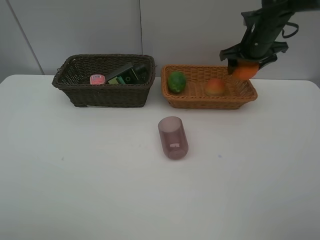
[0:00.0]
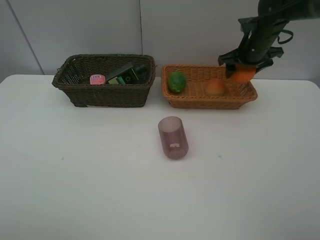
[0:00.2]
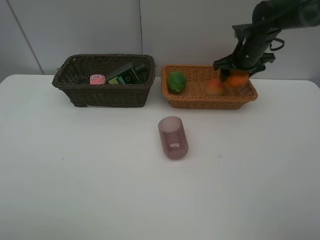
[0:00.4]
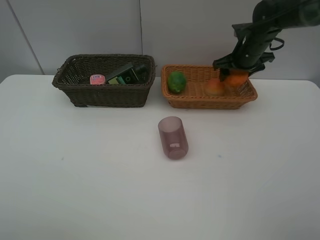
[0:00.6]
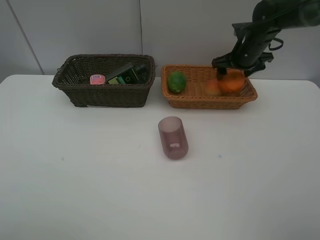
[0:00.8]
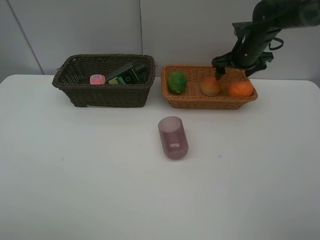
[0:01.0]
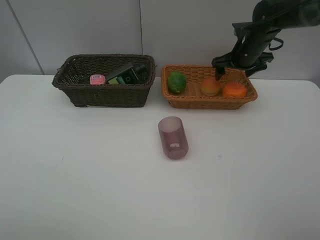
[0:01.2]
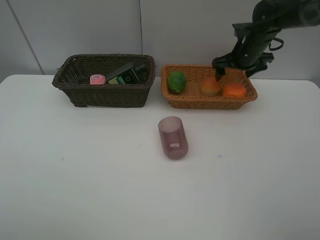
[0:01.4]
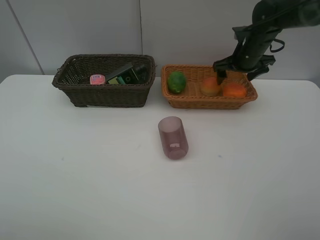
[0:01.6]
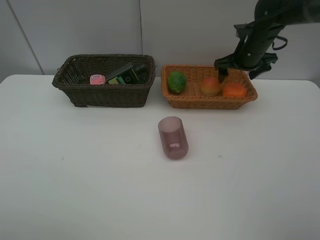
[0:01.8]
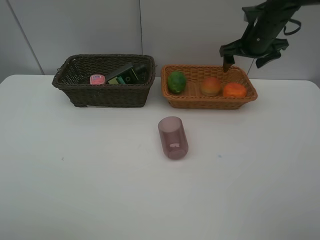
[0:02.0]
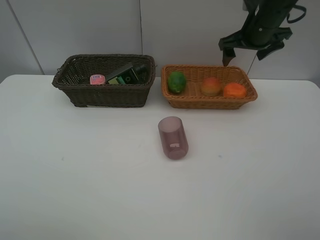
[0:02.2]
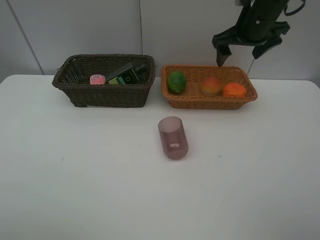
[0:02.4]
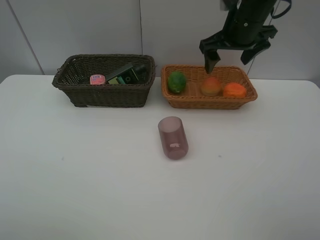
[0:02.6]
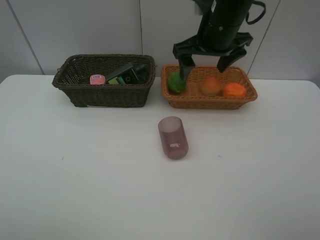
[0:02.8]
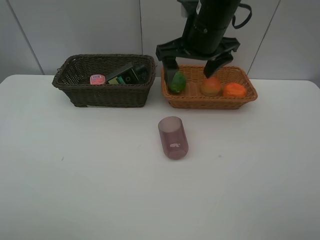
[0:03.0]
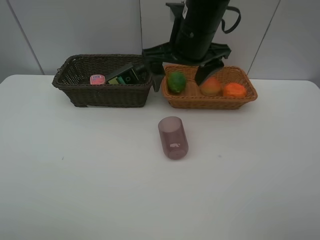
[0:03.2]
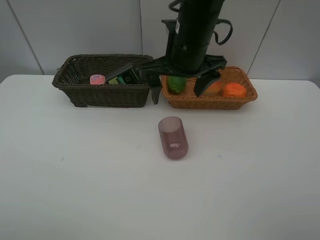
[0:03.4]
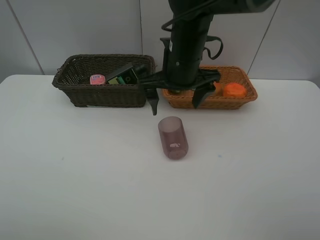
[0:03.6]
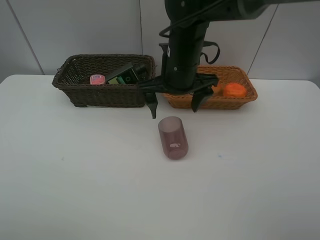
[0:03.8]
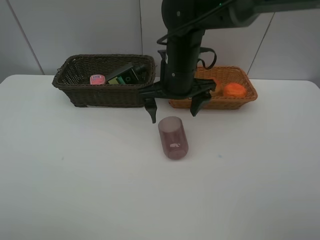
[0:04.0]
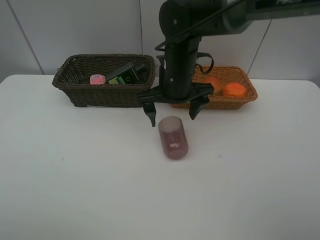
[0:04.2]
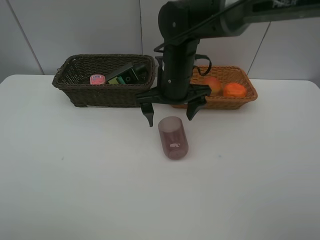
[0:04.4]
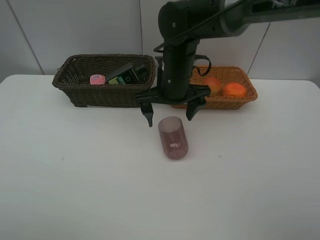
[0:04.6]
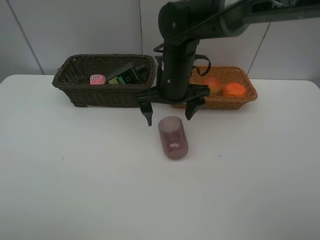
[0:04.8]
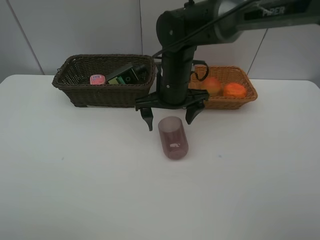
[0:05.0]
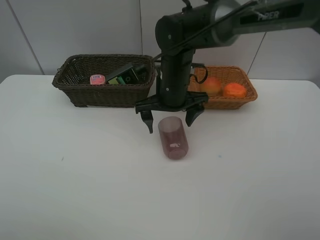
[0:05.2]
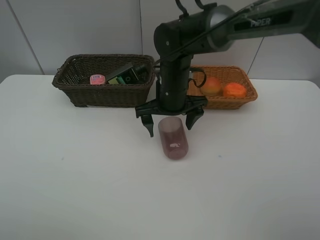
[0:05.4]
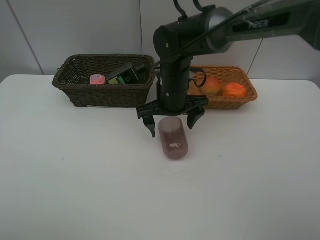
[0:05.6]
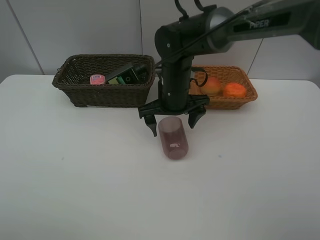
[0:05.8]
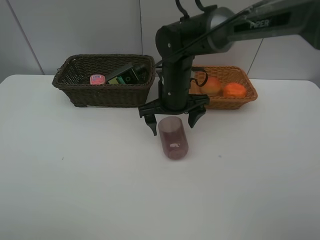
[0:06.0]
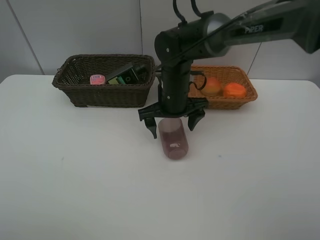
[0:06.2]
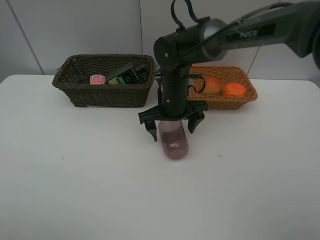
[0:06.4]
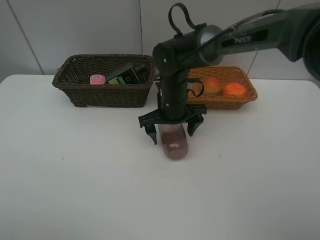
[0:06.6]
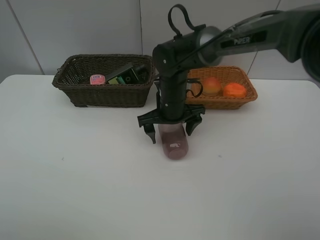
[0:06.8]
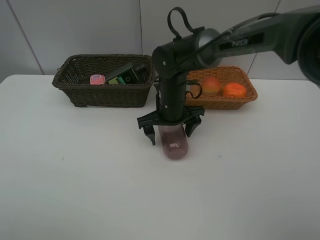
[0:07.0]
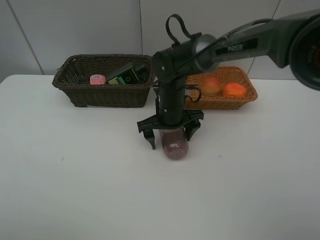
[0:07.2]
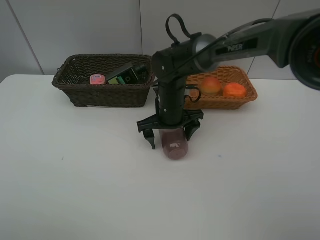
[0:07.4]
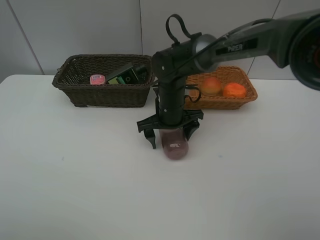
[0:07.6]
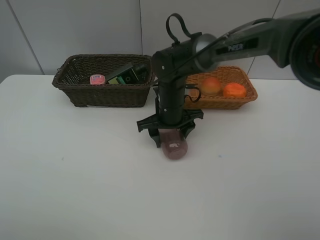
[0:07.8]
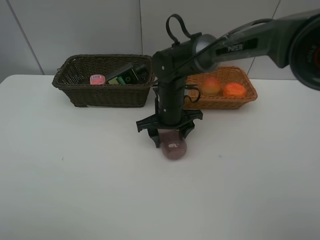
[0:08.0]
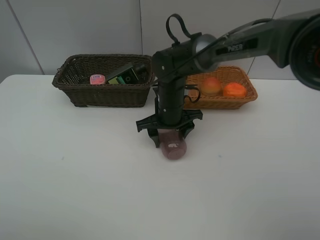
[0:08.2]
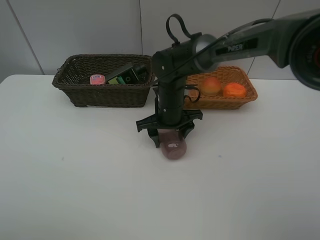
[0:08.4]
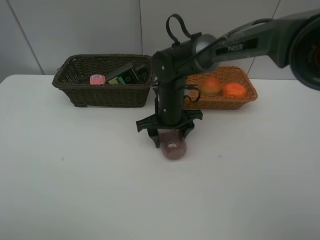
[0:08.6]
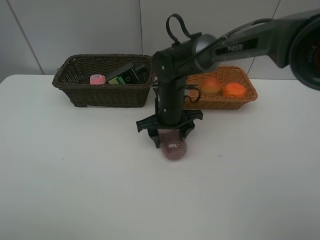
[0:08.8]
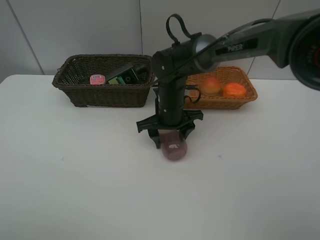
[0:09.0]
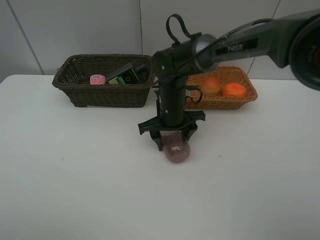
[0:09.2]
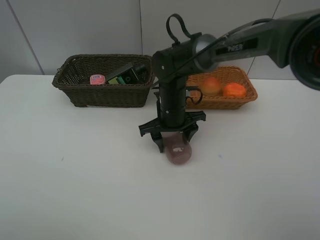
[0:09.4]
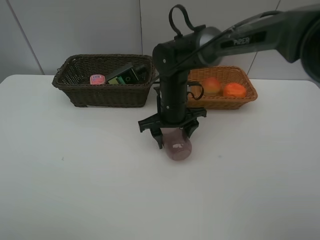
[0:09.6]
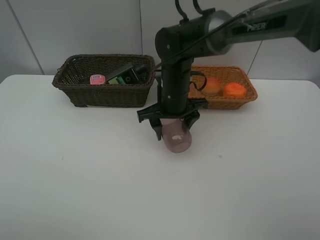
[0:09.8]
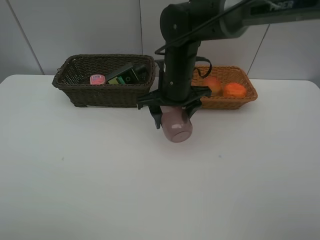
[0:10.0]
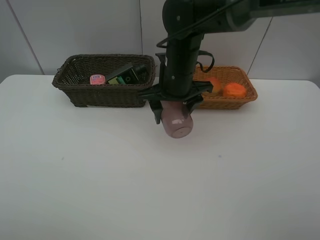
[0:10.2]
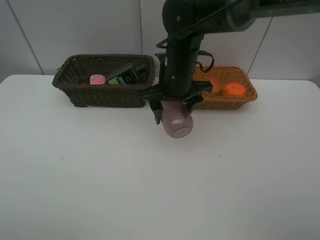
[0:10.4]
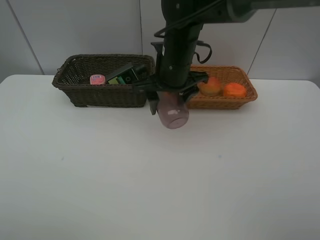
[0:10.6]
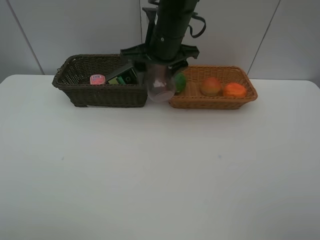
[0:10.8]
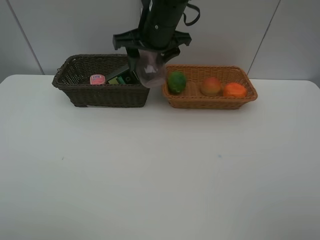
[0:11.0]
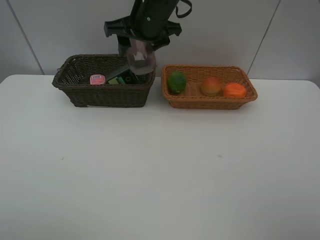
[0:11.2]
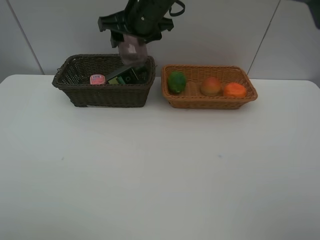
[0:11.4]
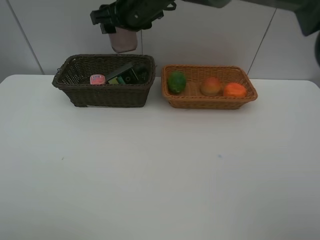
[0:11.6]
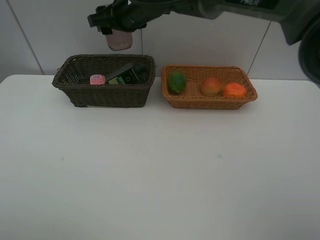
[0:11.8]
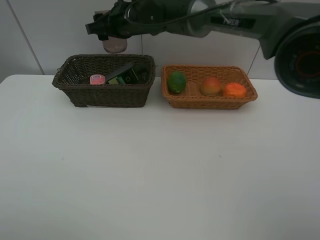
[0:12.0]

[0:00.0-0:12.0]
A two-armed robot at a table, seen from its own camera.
Task of the whole recording: place multiple objects separately in different baskets.
0:00.0 to 0:01.6: The right gripper opens its fingers.
0:01.6 to 0:03.0: The right gripper travels to the left, backward and upward by roughly 20 cm.
0:03.0 to 0:04.4: The right gripper is displaced downward by roughly 10 cm.
0:04.4 to 0:06.0: There are only small adjustments of the grippers.
0:06.0 to 0:07.6: The right gripper closes.
0:09.0 to 0:10.4: The right gripper travels upward by approximately 10 cm.
0:10.4 to 0:12.0: The right gripper heads forward and to the left, covering roughly 15 cm.

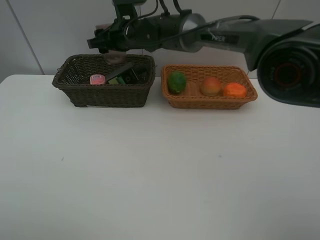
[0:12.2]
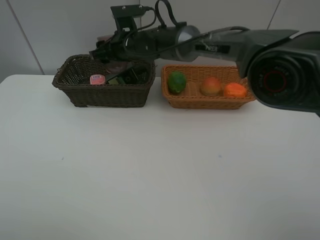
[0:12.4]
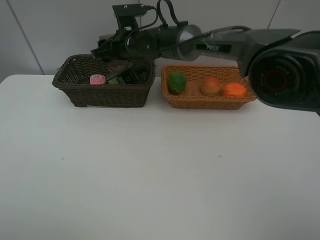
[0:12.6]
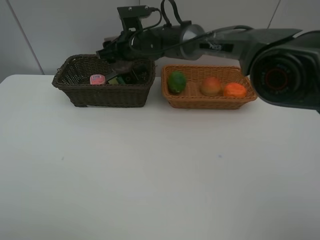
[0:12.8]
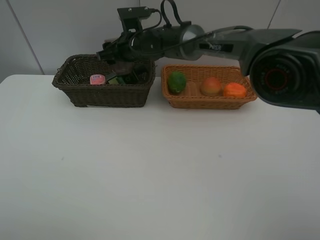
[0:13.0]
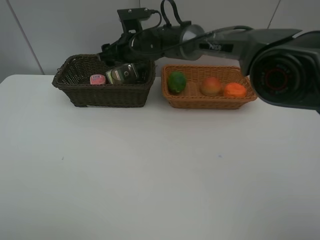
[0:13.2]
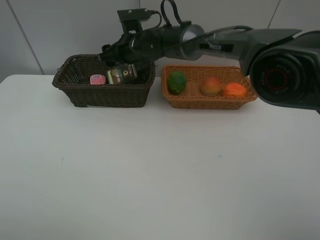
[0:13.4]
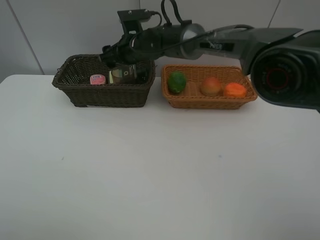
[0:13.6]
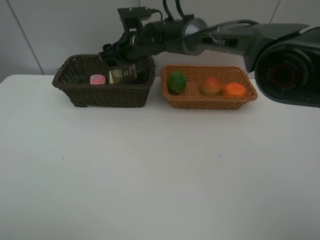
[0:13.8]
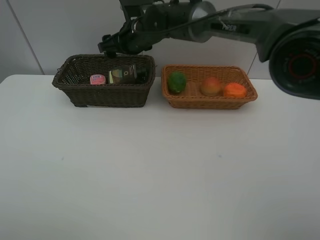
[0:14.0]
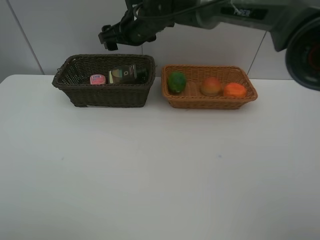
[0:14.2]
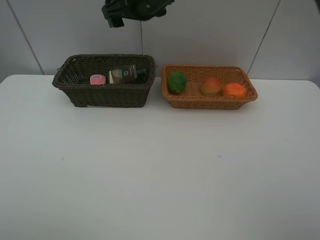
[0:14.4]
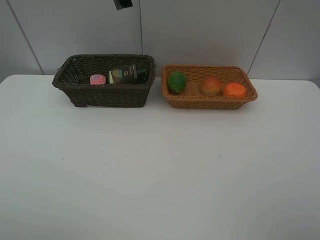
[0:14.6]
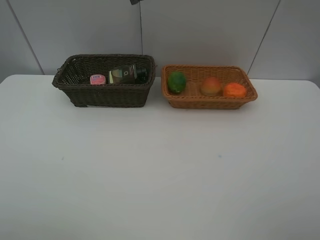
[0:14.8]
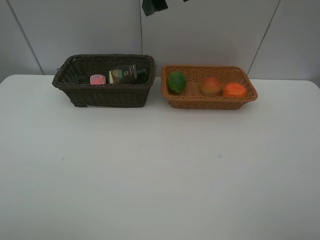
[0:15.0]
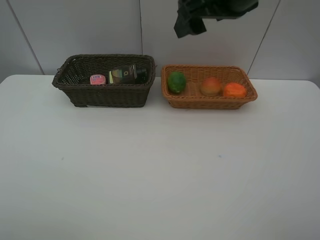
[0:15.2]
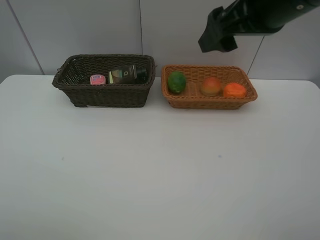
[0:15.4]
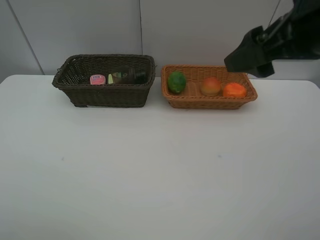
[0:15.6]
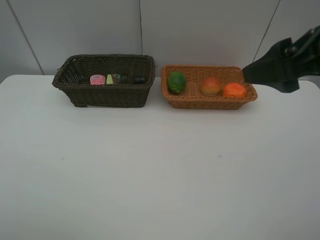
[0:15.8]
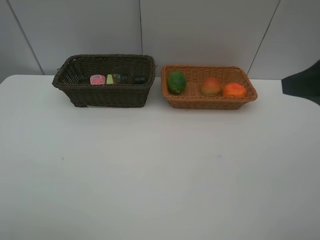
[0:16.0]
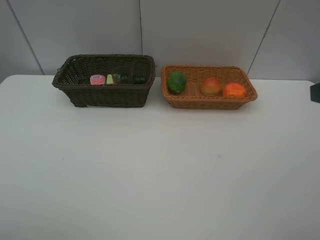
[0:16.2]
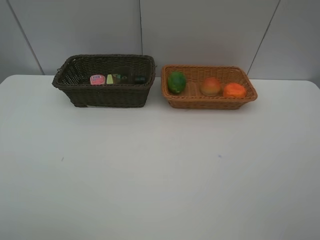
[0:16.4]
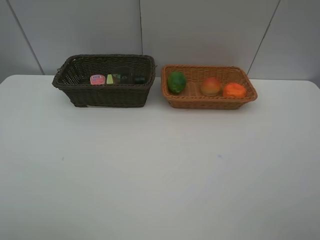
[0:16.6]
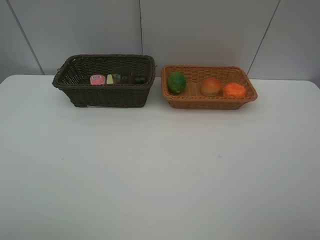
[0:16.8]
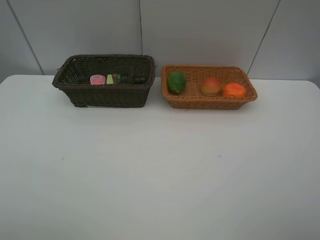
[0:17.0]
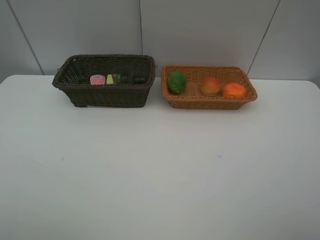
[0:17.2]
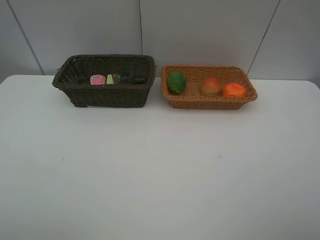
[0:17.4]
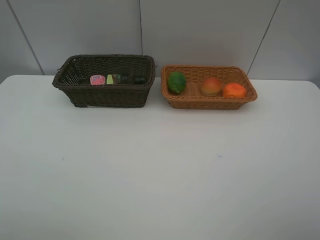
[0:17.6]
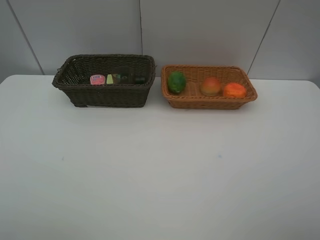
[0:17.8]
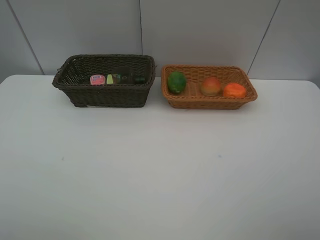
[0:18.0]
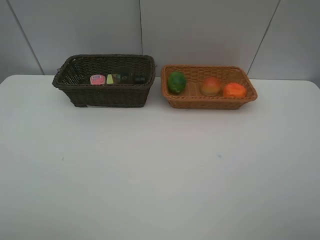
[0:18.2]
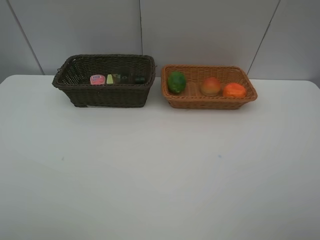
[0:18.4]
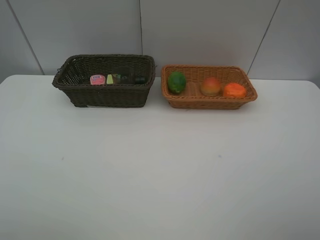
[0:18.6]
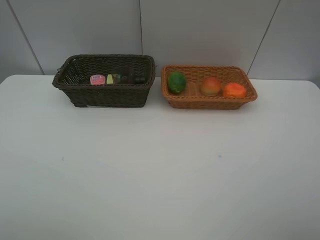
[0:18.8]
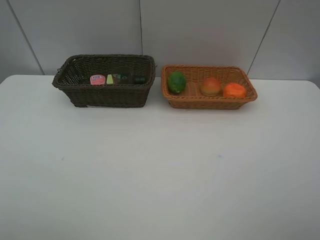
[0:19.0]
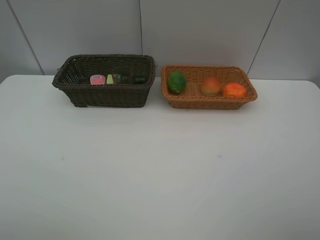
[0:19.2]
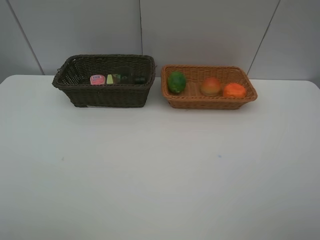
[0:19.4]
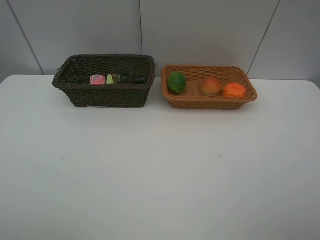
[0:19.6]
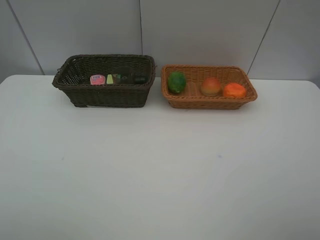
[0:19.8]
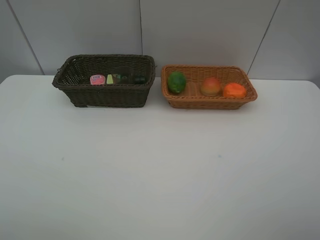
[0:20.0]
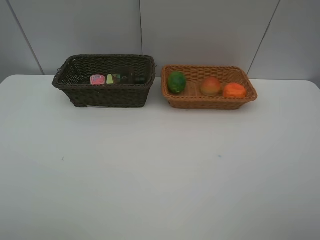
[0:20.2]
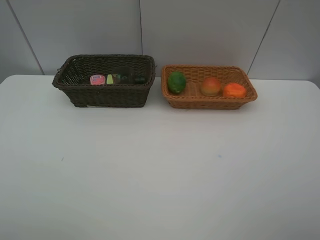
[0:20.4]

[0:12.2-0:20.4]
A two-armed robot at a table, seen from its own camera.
Task of the whole recording: place multiple objects separately in different baskets.
0:12.2 to 0:13.8: There are only small adjustments of the grippers.
0:13.8 to 0:15.4: The right gripper heads backward, to the right and upward, covering some 35 cm.
0:15.4 to 0:17.2: The right gripper heads backward and to the right, covering roughly 30 cm.
0:18.8 to 0:20.4: Both grippers stay put.
